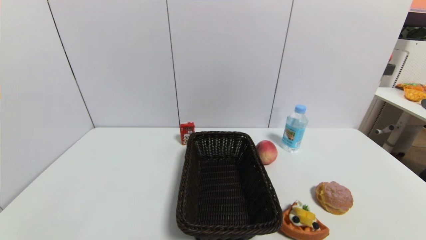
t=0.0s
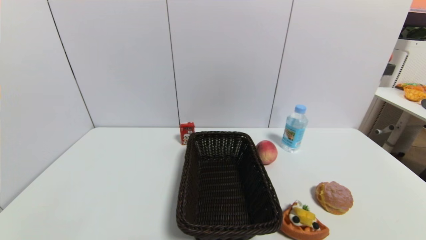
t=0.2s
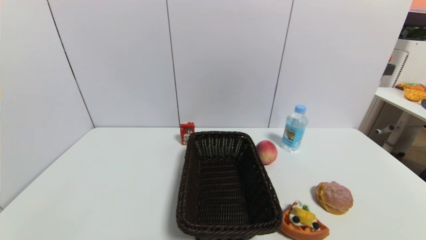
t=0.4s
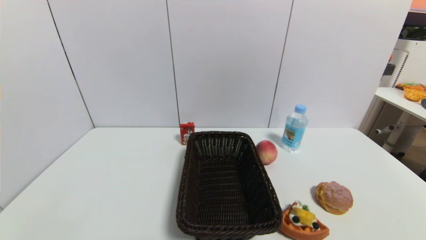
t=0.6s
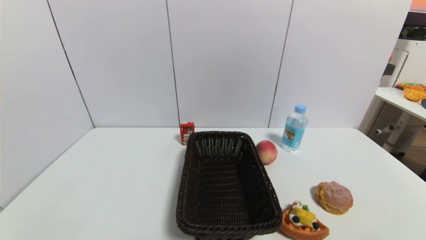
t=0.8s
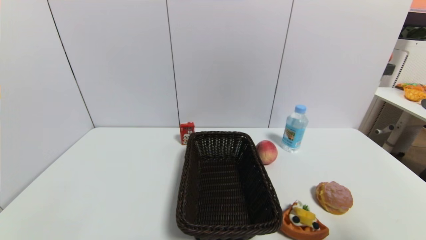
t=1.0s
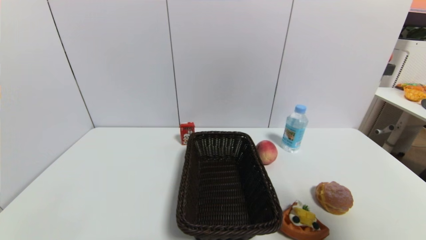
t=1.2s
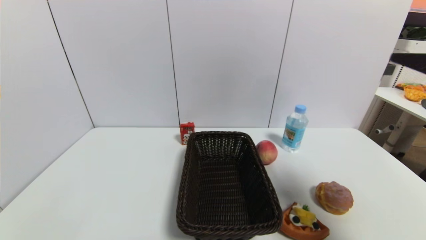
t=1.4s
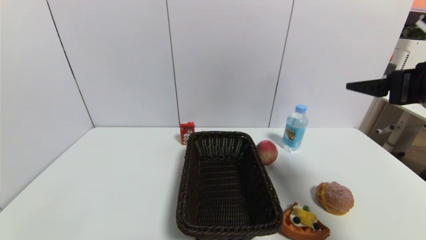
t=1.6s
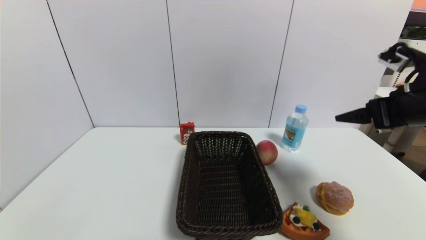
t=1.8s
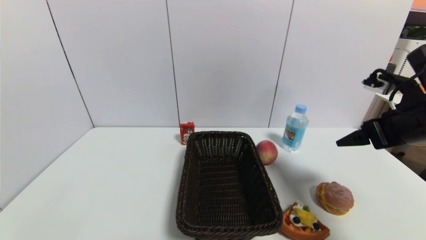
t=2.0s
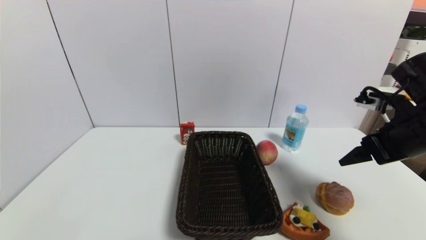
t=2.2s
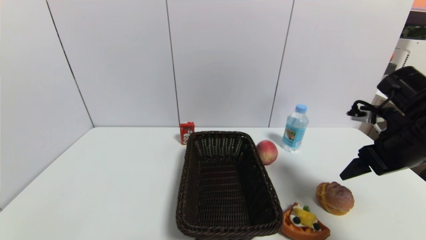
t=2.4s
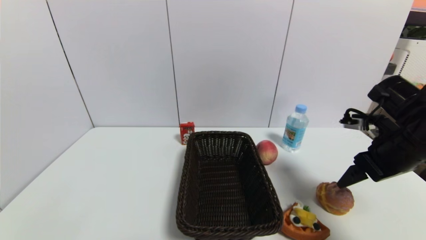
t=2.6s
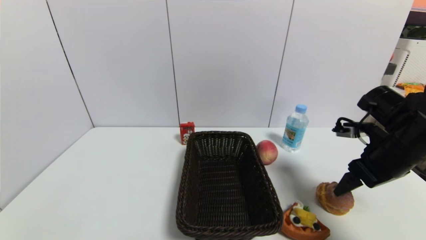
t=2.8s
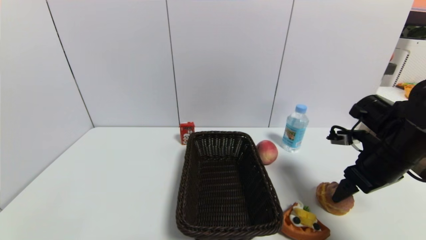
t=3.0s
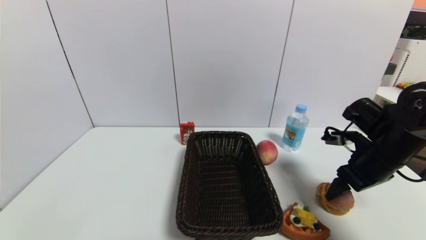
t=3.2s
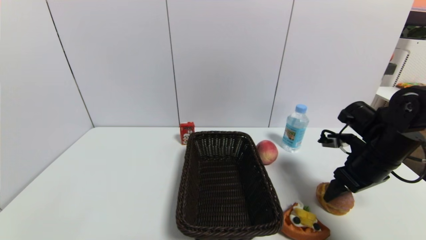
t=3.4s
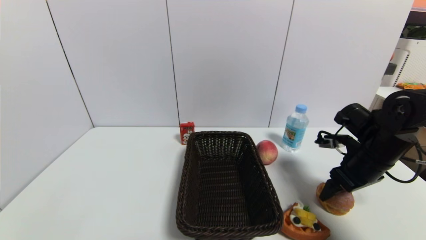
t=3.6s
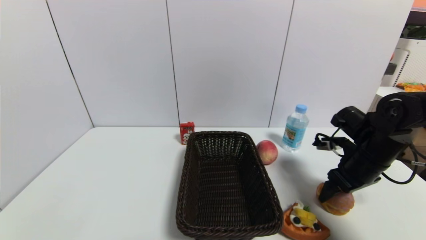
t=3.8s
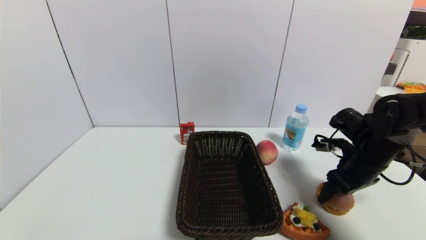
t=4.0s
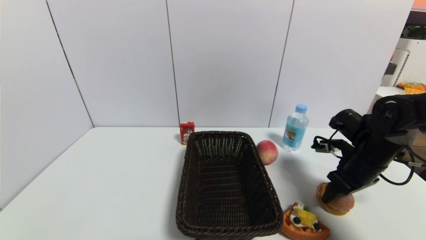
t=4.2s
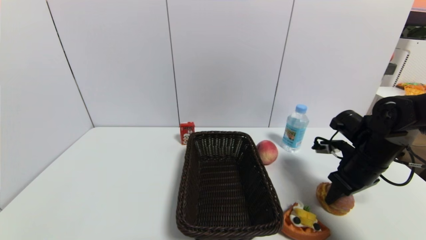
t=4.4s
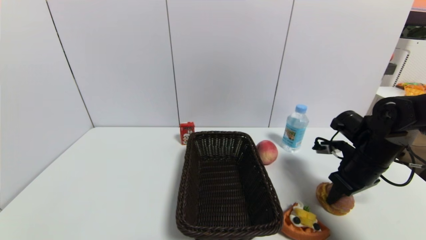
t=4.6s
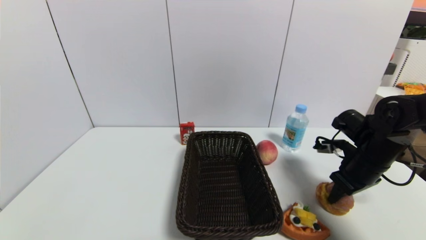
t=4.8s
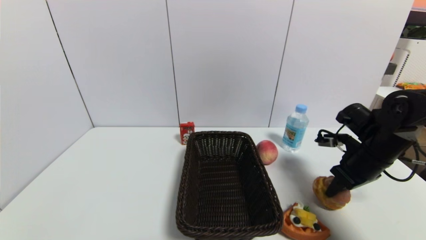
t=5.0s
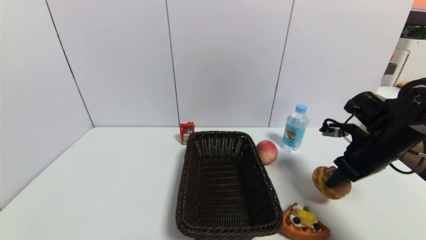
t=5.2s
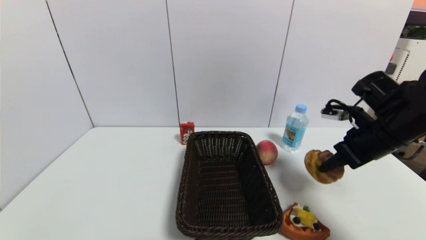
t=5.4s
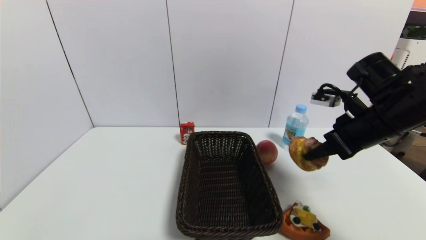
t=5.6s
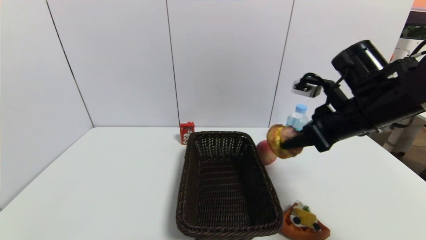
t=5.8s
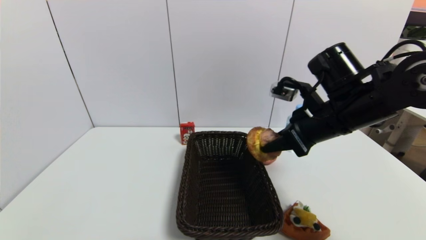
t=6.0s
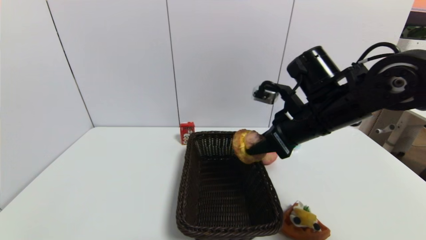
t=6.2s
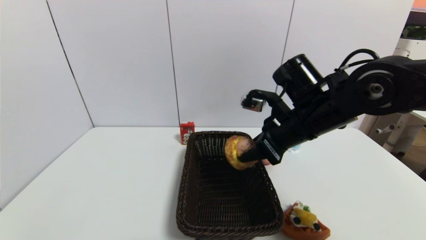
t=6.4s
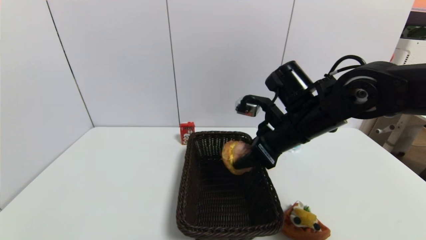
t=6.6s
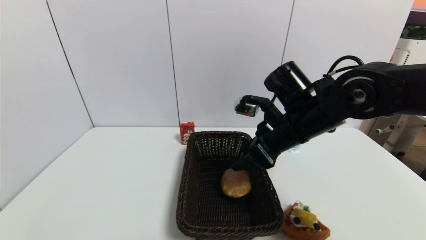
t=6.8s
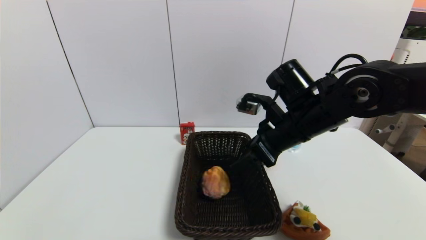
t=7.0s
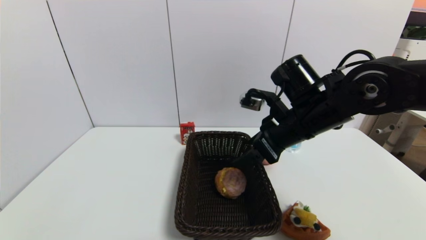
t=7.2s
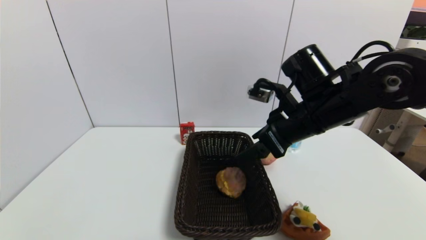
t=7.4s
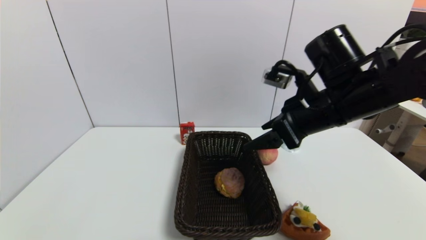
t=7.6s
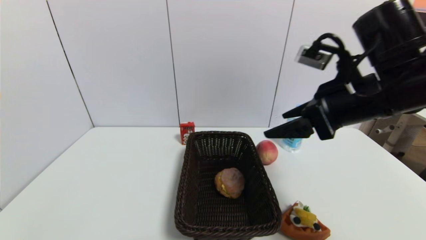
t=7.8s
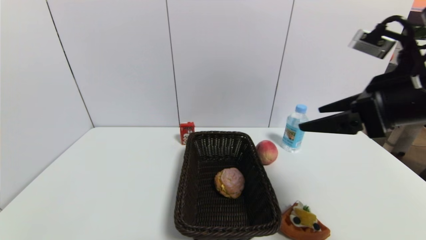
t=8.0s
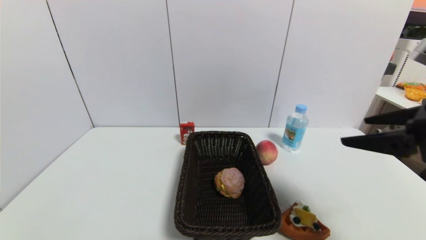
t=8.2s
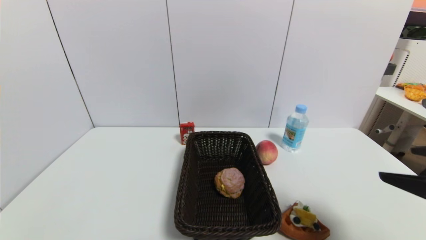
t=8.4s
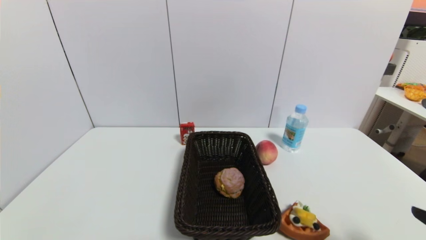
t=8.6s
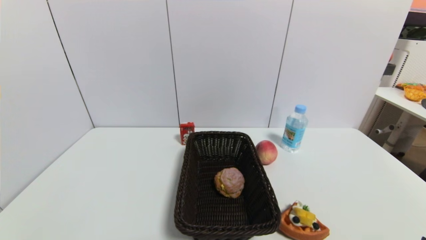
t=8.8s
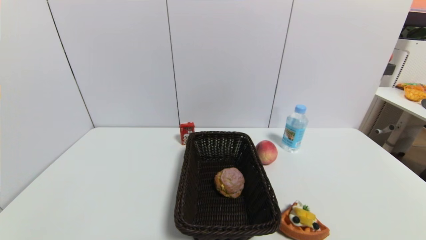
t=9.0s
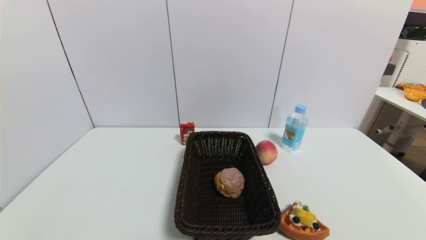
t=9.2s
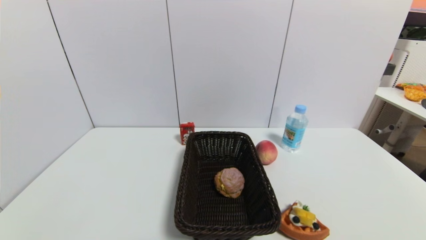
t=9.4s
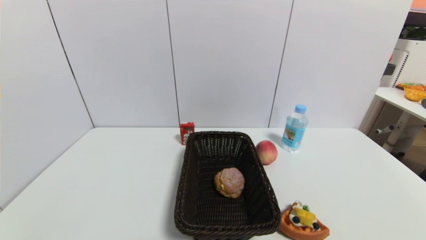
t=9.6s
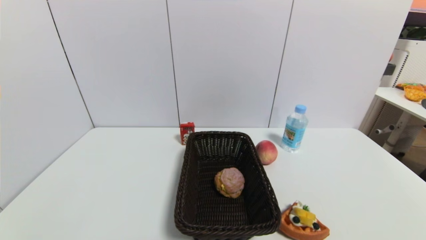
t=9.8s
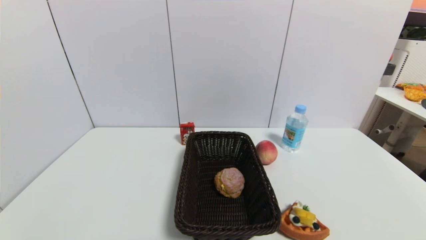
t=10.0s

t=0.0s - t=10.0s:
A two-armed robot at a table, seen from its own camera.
Task of the whole recording: use a gripper to pick the target object and place on the brown basket.
Step, t=0.0s - t=4.4s: Grasp the round bread with the right gripper.
Step, t=4.6s - t=7.4s: Place the round bread into the basket with the right gripper.
t=0.0s - t=1.4s: The right gripper heads upward and forward, covering about 30 cm.
t=1.4s - t=2.8s: The right gripper moves downward and forward, some 15 cm.
t=2.8s - t=4.2s: The right gripper heads downward, covering approximately 5 cm, and closes its fingers.
t=4.2s - t=5.8s: The right gripper is displaced upward and to the left by roughly 15 cm, and closes up.
t=5.8s - t=7.2s: The right gripper heads to the left, covering approximately 10 cm, and opens its fingers.
t=7.2s - t=8.6s: The right gripper shifts some 30 cm backward and to the right.
t=8.6s - t=10.0s: The right gripper moves downward and backward, roughly 15 cm.
